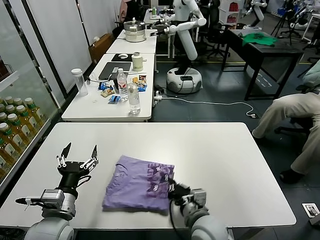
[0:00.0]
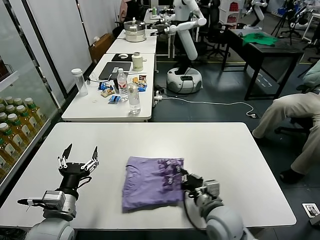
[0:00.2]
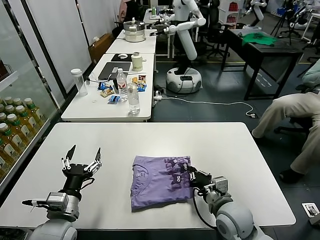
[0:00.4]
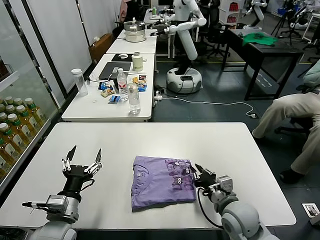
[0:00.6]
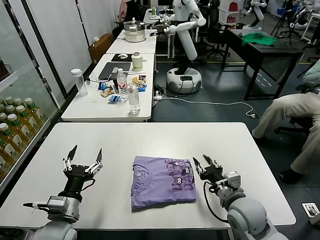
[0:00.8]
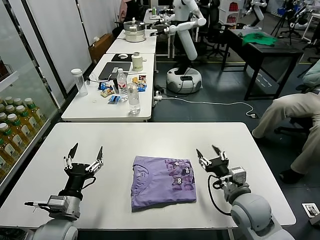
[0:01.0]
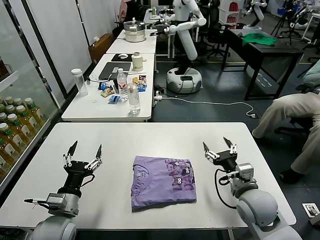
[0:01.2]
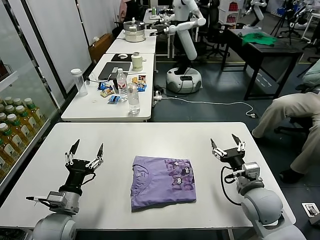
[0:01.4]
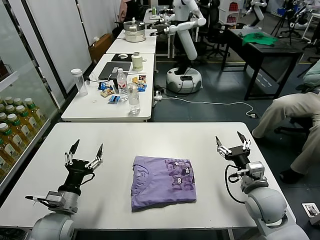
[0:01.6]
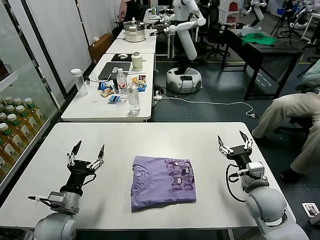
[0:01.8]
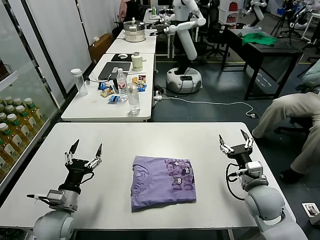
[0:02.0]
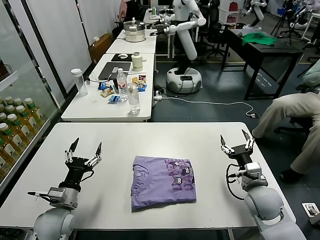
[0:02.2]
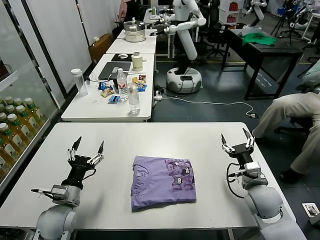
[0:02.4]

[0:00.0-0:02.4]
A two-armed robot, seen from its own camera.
Task of the whole recording: fold and organize the clothes.
0:00.0 to 0:01.2: The right gripper is displaced to the right and forward by about 15 cm, and opens its fingers. The left gripper changes place by some 5 cm.
0:01.2 to 0:02.4: The left gripper ends up about 5 cm from where it was. The right gripper changes place by some 5 cm.

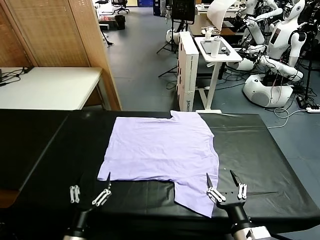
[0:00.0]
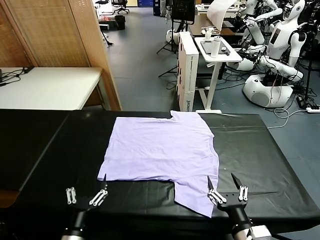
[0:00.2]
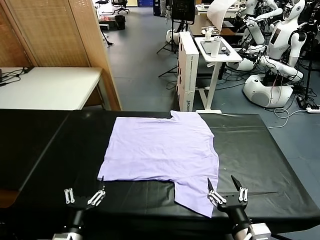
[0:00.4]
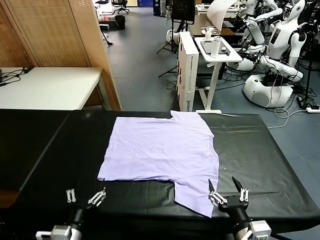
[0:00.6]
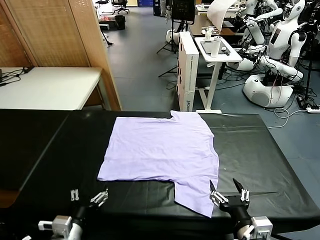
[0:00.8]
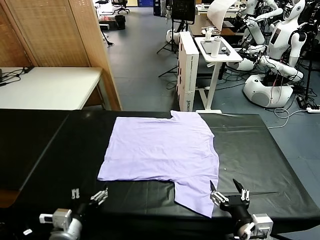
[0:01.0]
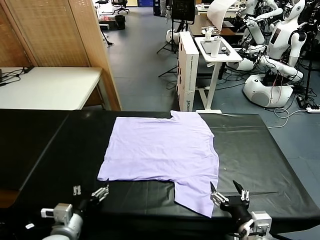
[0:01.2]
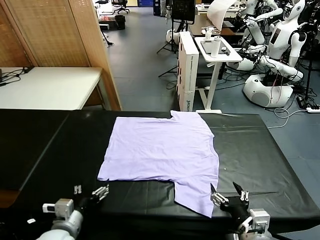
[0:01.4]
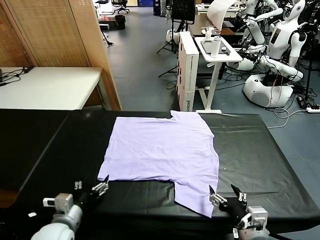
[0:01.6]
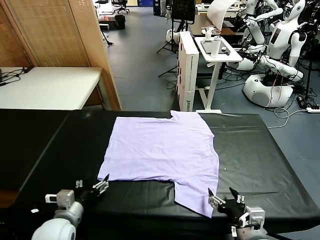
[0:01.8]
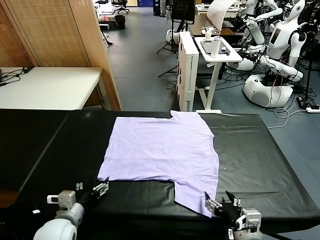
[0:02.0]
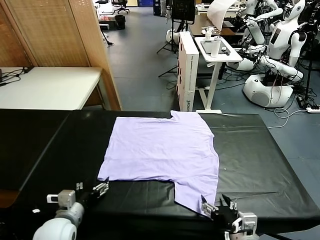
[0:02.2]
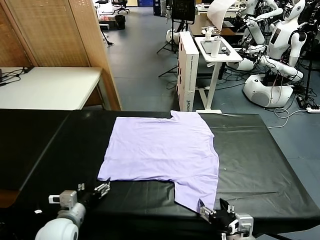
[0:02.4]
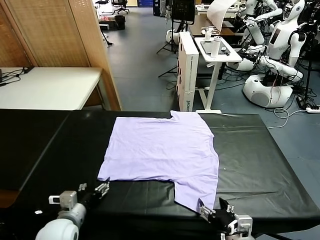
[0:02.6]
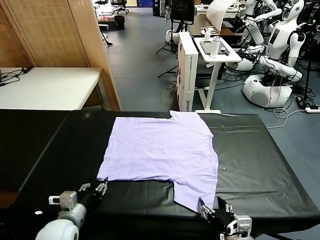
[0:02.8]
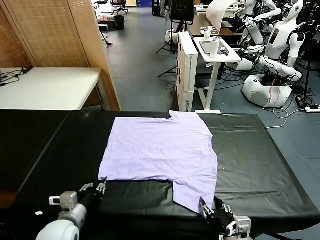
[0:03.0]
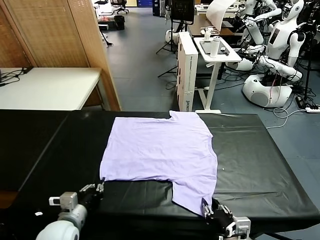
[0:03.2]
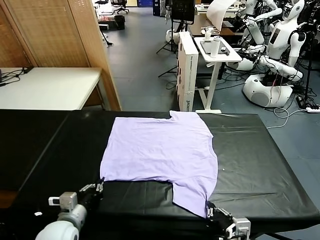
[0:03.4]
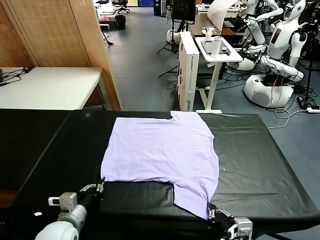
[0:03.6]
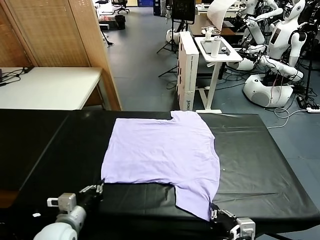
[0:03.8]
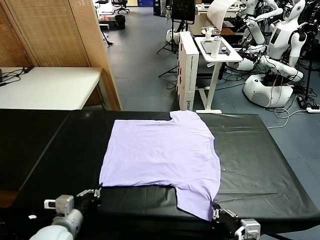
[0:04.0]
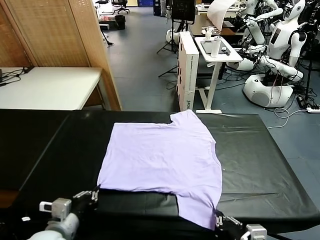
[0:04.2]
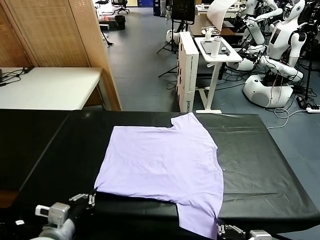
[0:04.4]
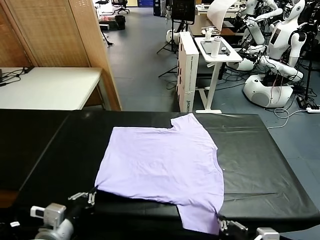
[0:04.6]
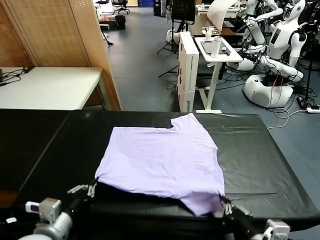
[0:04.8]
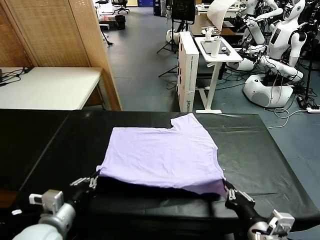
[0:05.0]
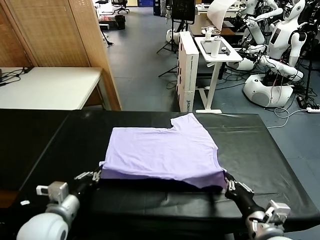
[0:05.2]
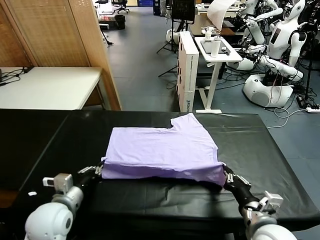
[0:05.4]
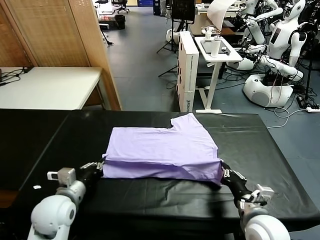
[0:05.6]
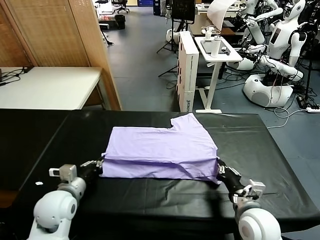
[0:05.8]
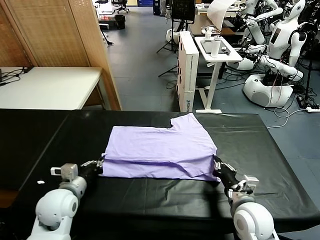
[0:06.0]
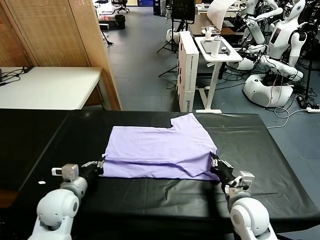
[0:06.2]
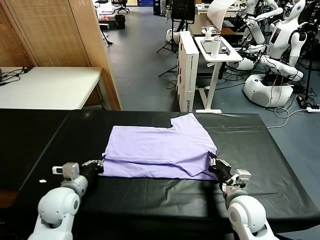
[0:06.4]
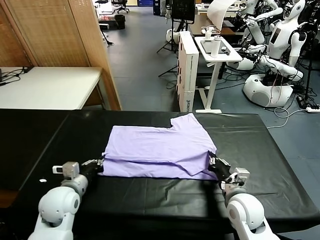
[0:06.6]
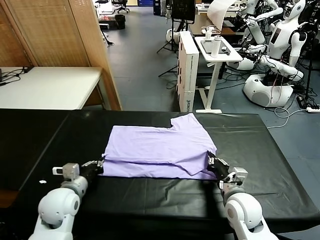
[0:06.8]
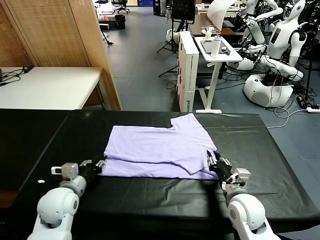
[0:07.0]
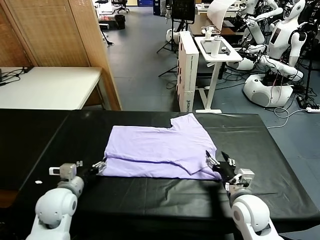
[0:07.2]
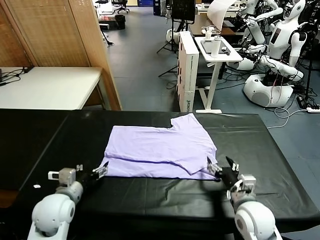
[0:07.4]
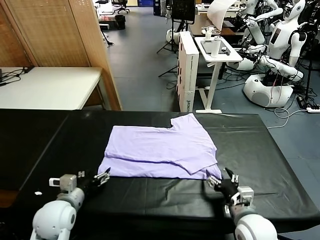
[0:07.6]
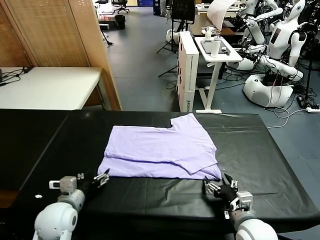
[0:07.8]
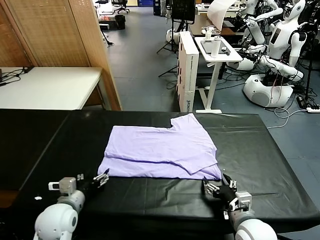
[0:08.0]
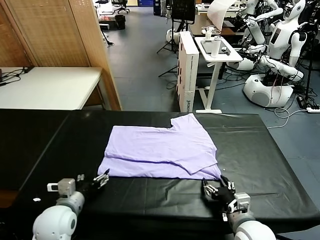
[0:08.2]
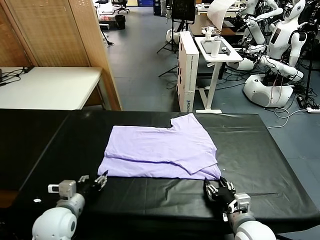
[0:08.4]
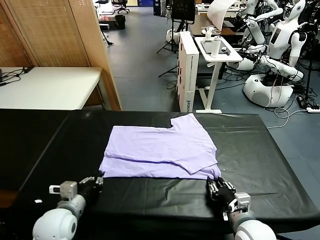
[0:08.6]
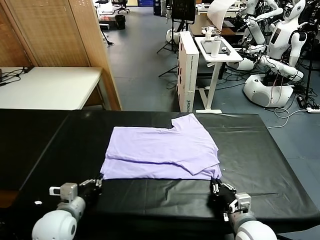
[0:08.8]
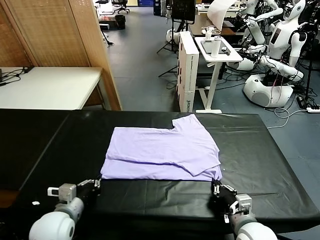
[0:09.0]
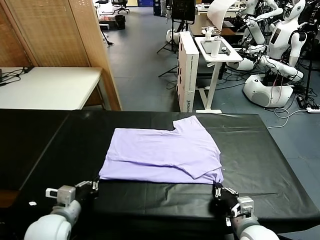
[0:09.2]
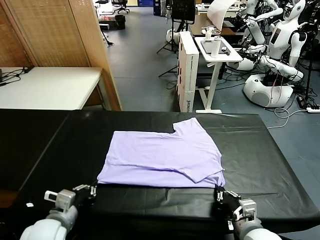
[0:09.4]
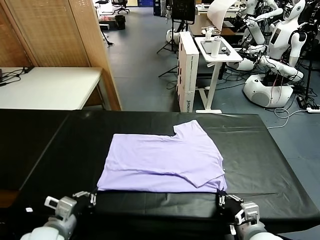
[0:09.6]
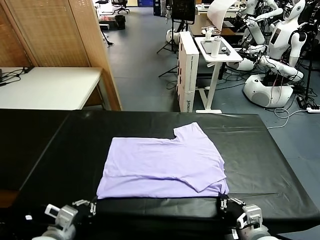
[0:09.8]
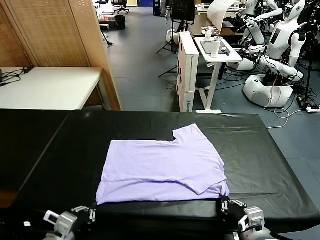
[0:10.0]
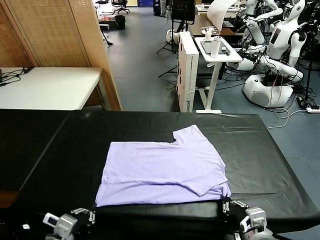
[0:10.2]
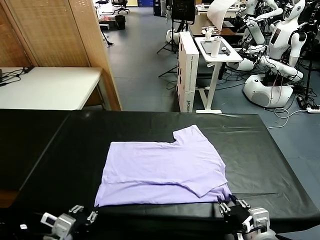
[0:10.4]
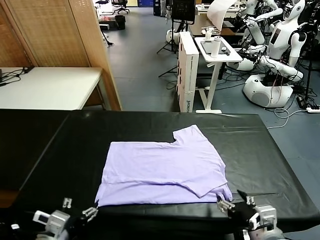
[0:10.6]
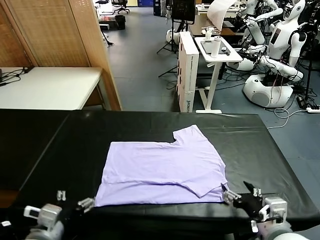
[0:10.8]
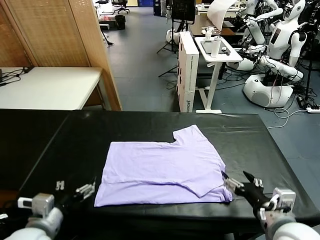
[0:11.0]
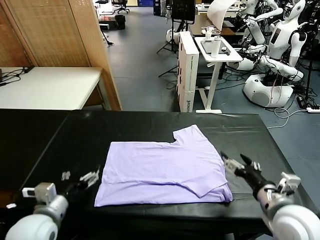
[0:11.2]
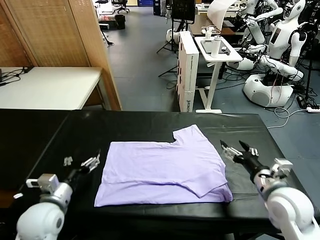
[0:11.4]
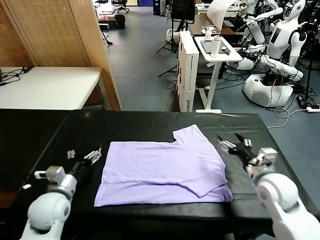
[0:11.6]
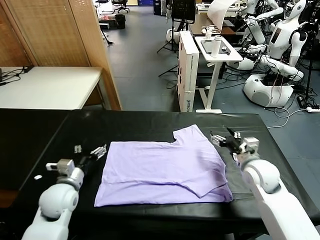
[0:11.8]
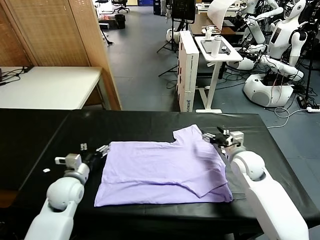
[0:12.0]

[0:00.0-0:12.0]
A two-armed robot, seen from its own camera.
Task of the whole recording: fold and organize the clothes.
Step, 0:00.0 to 0:04.2: use both grippers simultaneously to clamp the lower edge of the clothing fabric.
Step, 0:04.4 to 0:07.2: use both grippers to drag the lower edge of the fabric forward and fold it over the upper edge.
Step, 0:07.4 to 0:10.6: Drag the clothes downward with both gripper.
0:01.6 to 0:03.0: The right gripper closes. Meanwhile the left gripper closes its fingers.
0:03.0 to 0:04.4: The right gripper travels upward by approximately 10 cm, while the left gripper moves forward, some 5 cm.
0:04.4 to 0:06.0: The left gripper moves forward, roughly 5 cm, while the right gripper shifts about 20 cm forward and downward.
0:06.0 to 0:07.6: The two grippers go roughly 5 cm backward. The right gripper opens up, while the left gripper opens its fingers.
0:07.6 to 0:09.0: The left gripper moves backward, some 10 cm, and closes its fingers; the right gripper closes its fingers.
0:09.0 to 0:10.4: The right gripper shifts approximately 10 cm upward, and opens up, while the left gripper travels forward by about 5 cm, and opens.
0:10.4 to 0:12.0: The left gripper travels forward and downward by approximately 20 cm, and opens its fingers. The right gripper shifts approximately 30 cm forward.

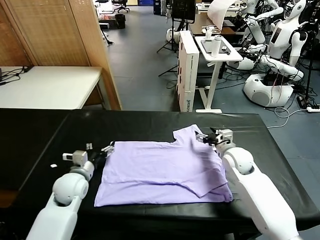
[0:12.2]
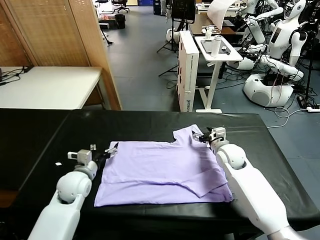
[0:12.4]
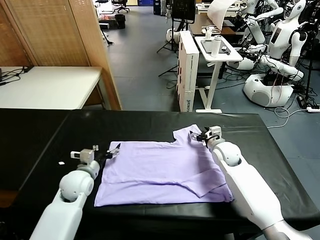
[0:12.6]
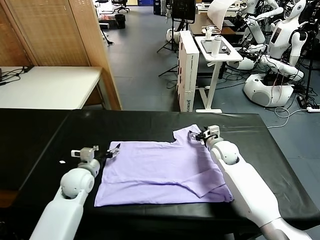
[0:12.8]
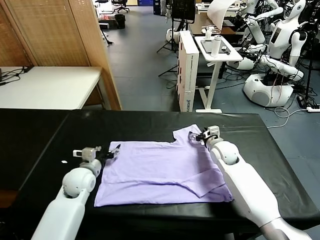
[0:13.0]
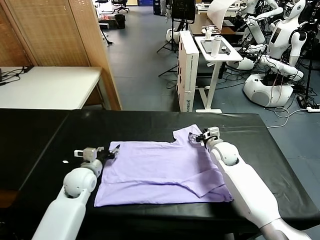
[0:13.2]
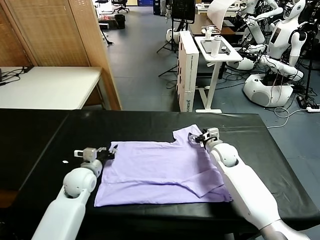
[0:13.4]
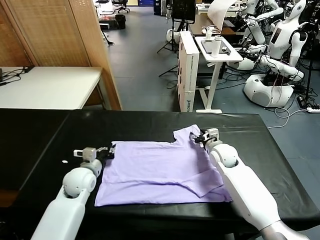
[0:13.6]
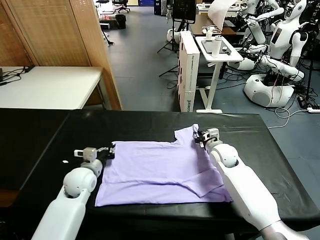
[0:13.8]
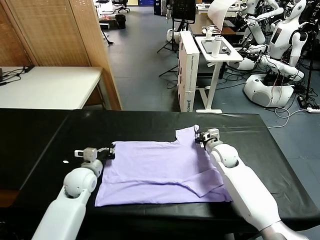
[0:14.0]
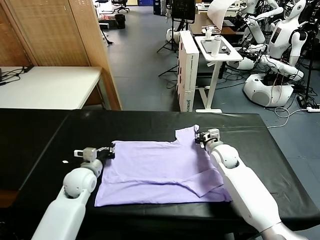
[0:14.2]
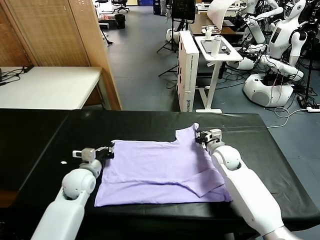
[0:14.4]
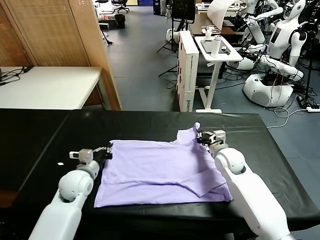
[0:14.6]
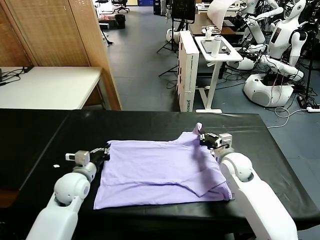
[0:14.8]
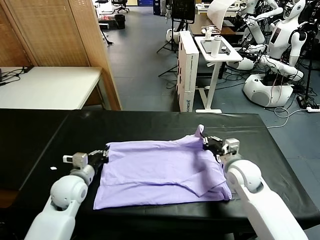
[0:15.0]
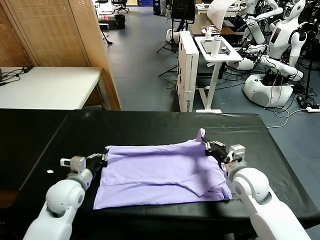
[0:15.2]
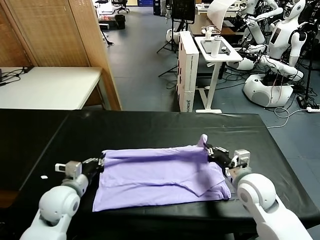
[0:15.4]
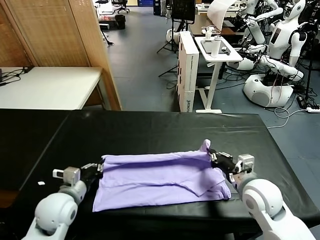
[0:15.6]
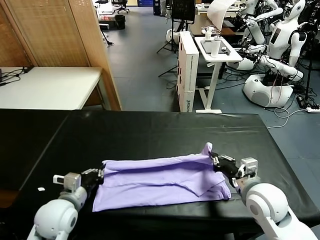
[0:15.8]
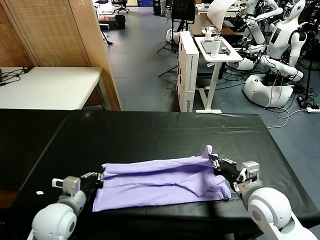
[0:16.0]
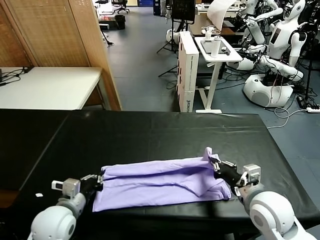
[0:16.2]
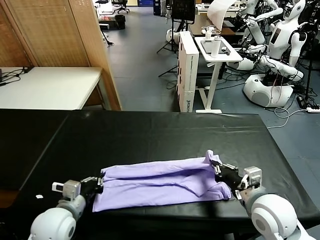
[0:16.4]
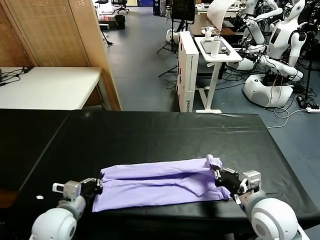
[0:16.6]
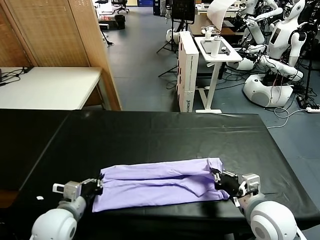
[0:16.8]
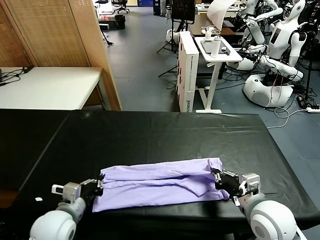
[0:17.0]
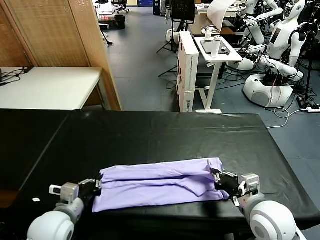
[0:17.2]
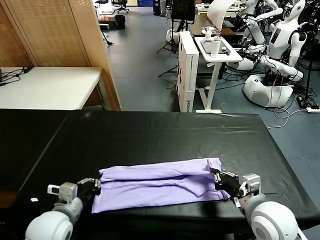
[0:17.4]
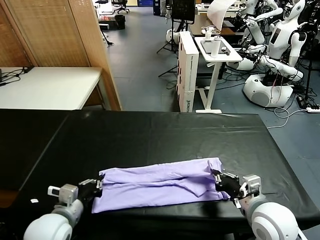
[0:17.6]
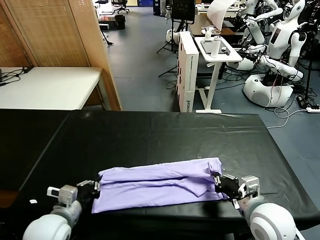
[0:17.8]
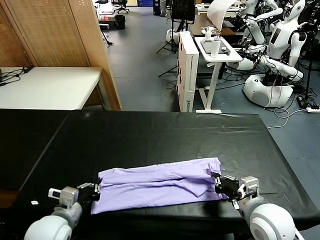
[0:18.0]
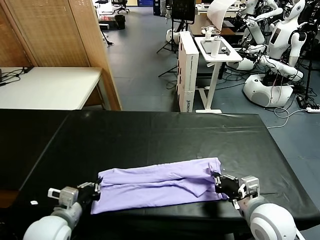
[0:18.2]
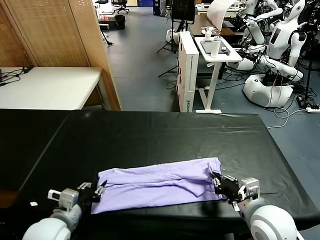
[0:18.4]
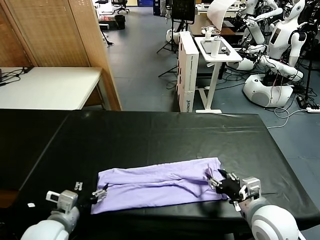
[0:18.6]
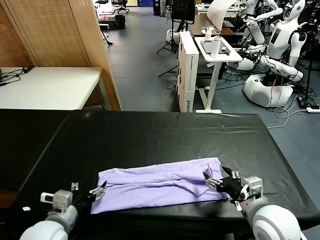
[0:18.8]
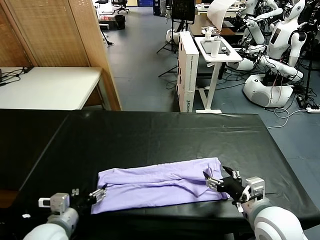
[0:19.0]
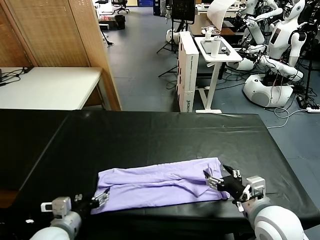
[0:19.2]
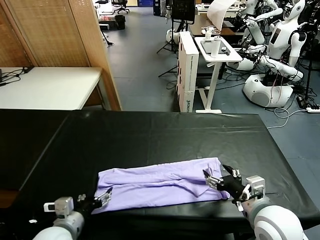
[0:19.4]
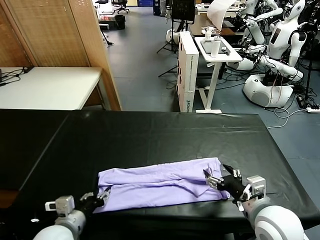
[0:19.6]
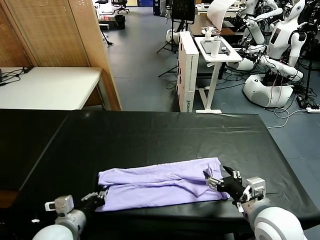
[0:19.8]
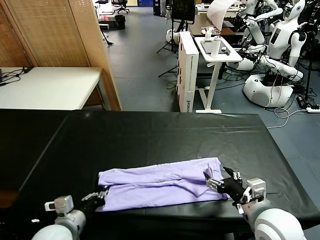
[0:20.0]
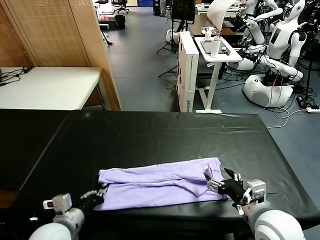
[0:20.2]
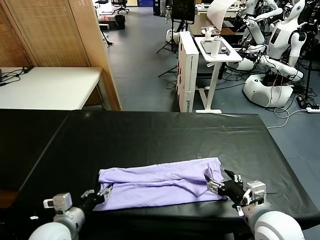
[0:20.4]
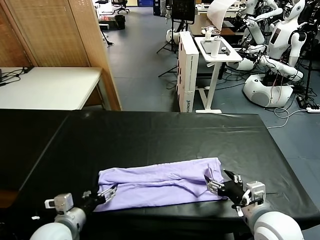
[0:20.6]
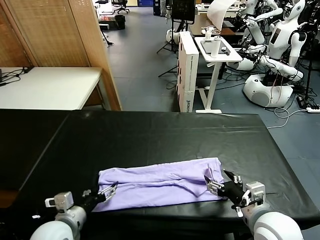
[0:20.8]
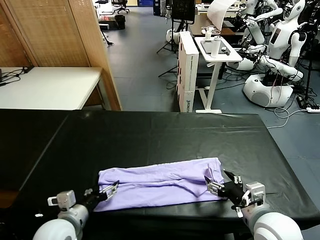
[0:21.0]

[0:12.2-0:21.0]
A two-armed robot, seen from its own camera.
Task of the whole recording: fold and organize the clothes.
Step, 0:12.2 to 0:13.8: use both grippers simultaneously to clamp the upper edge of the clothing fabric.
Step, 0:14.2 to 0:18.6: use both grippers to drag the upper edge of the fabric backward and fold it over the lower edge.
0:12.2 to 0:13.6: The right gripper closes its fingers, while the left gripper closes up.
0:13.6 to 0:15.2: The right gripper heads backward and upward, covering approximately 20 cm, while the left gripper goes about 15 cm backward.
0:15.2 to 0:16.6: The right gripper goes roughly 10 cm backward.
0:16.6 to 0:18.0: There are only small adjustments of the grippers.
0:18.0 to 0:19.6: The right gripper opens its fingers, while the left gripper opens its fingers.
0:19.6 to 0:21.0: The left gripper opens.
